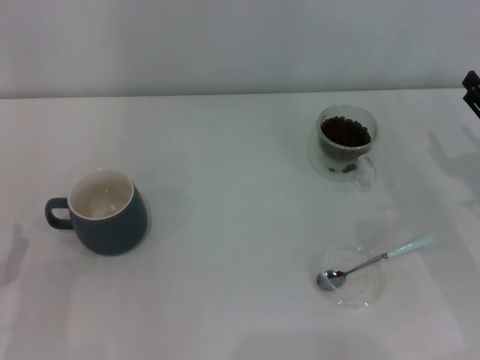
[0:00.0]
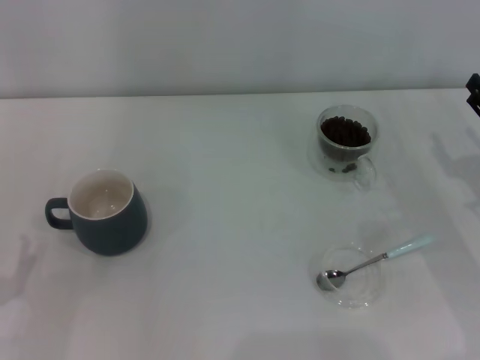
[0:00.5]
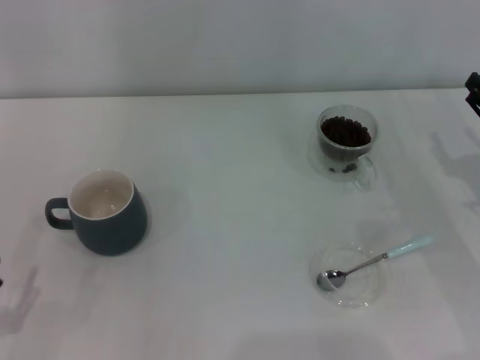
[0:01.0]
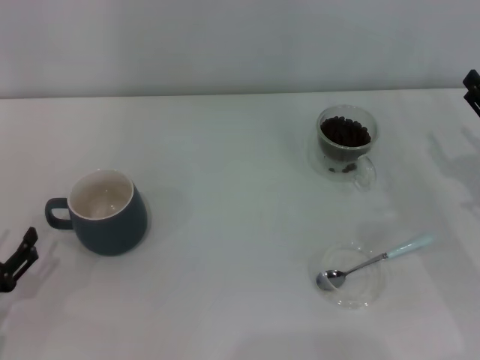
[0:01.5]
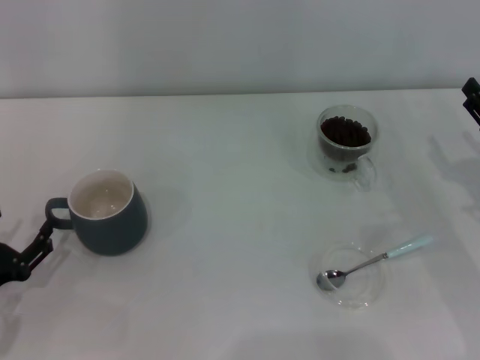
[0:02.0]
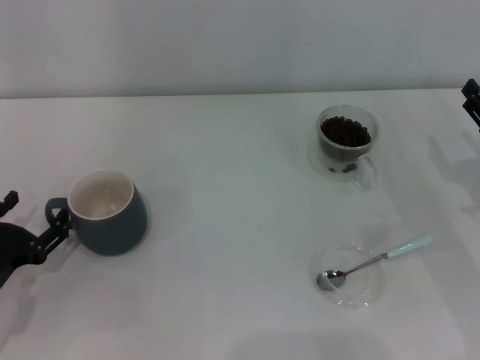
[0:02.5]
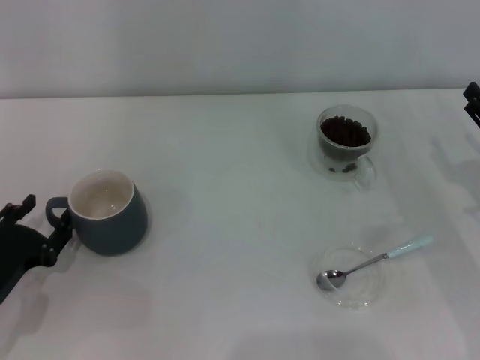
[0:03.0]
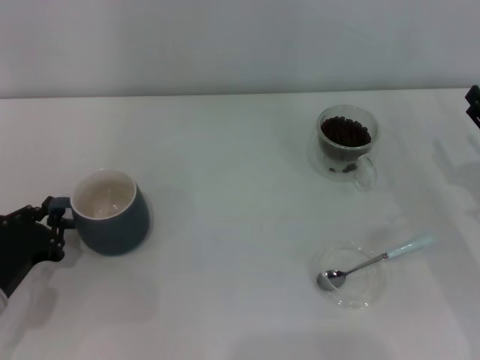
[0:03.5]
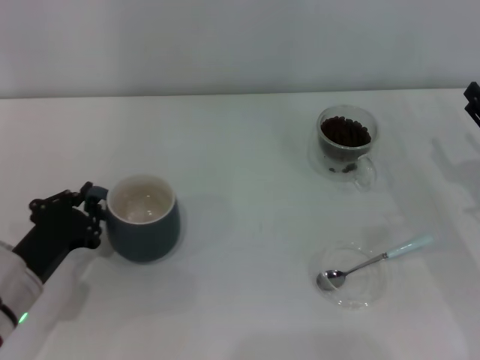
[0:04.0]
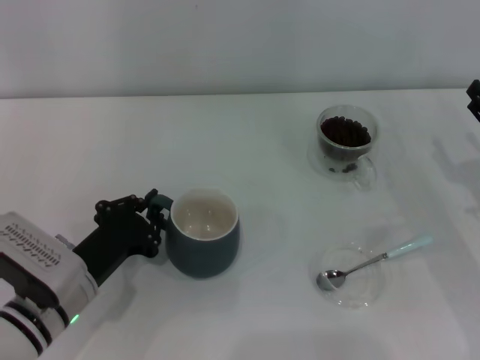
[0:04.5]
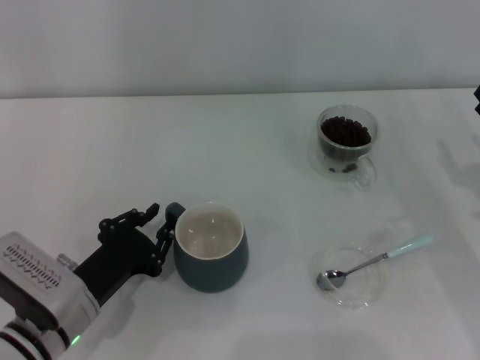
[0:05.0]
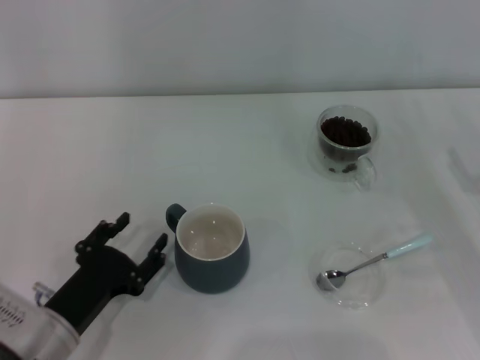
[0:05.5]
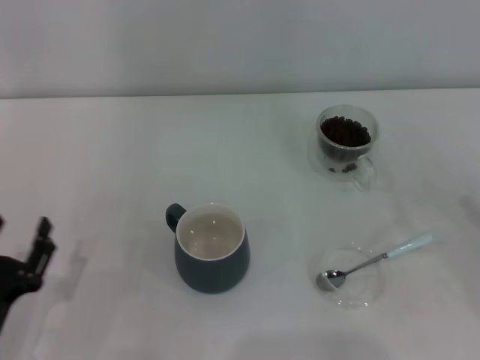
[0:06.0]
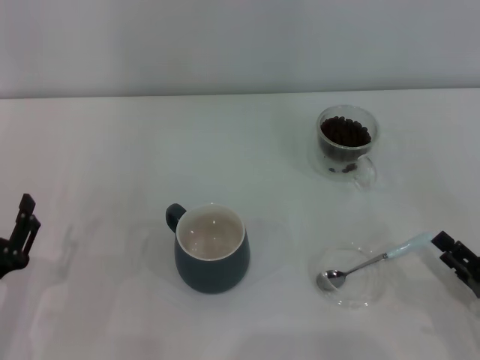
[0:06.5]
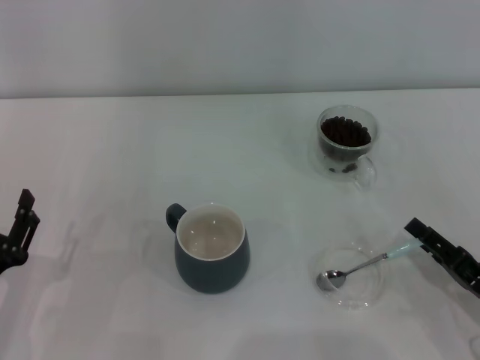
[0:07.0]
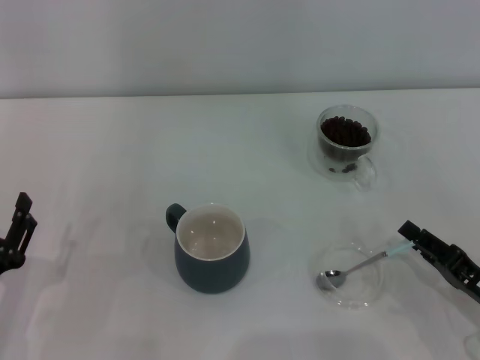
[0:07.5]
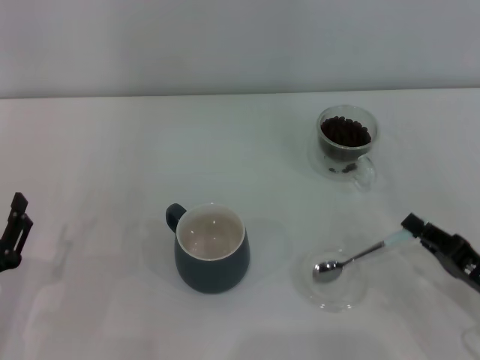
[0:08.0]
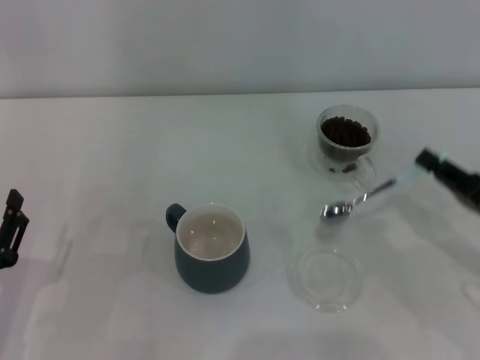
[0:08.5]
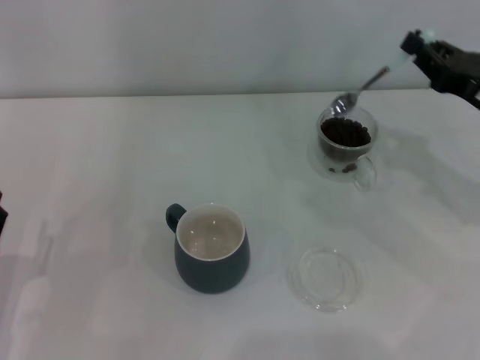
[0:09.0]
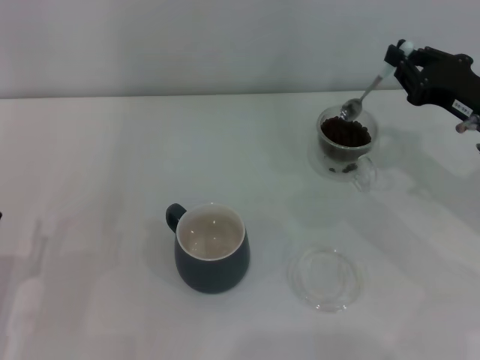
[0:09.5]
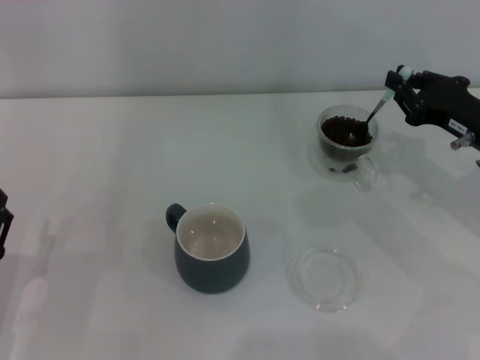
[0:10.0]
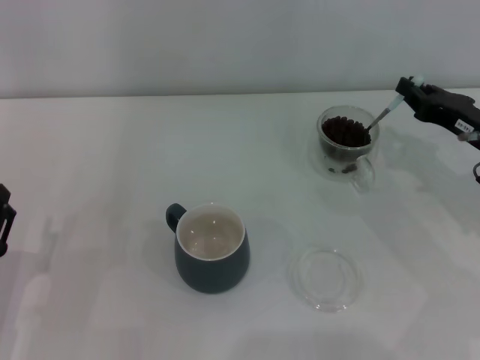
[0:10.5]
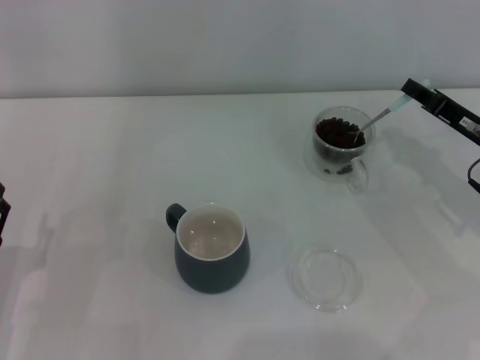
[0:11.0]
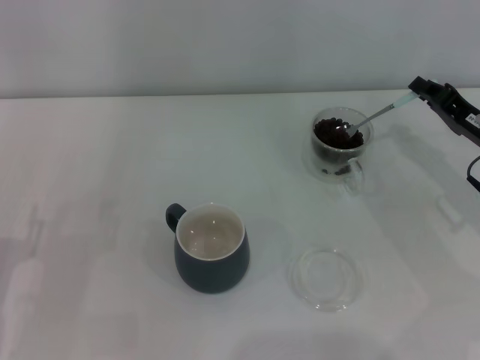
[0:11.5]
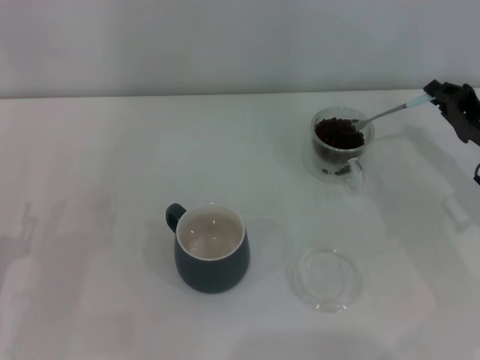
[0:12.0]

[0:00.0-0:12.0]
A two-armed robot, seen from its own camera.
Task of the whole recording: Use a blue spoon to take out the coffee beans from the glass and pour them into the gray cup.
Step, 0:00.0 to 0:05.5: Move the cup to the center of view with the left gripper.
Step, 0:06.0 to 0:08.0: Pick up the spoon with the right gripper.
0:02.0 to 0:04.0: The left gripper moves to the right, approximately 5 cm, and closes.
0:04.0 to 0:06.0: The grippers both shift backward by roughly 10 cm. The left gripper opens.
0:06.0 to 0:08.0: The right gripper is displaced to the left by roughly 5 cm, and closes its fingers.
0:08.0 to 0:10.0: The right gripper shifts approximately 15 cm forward and upward.

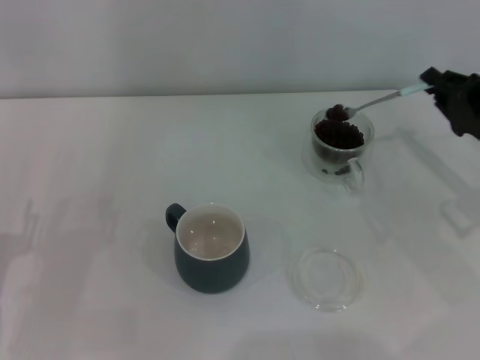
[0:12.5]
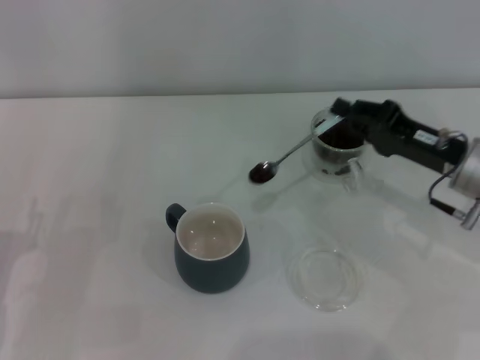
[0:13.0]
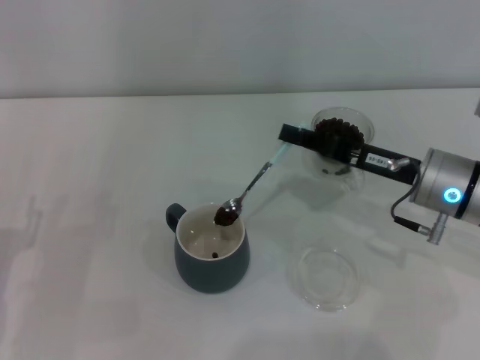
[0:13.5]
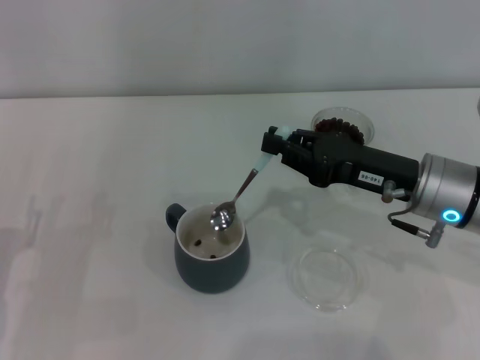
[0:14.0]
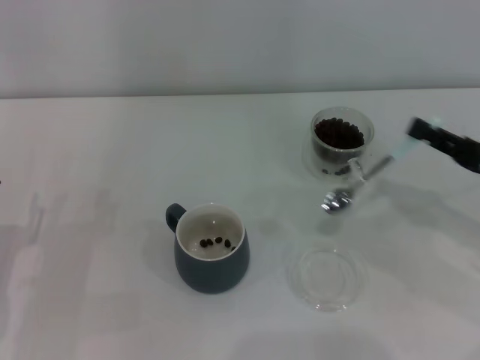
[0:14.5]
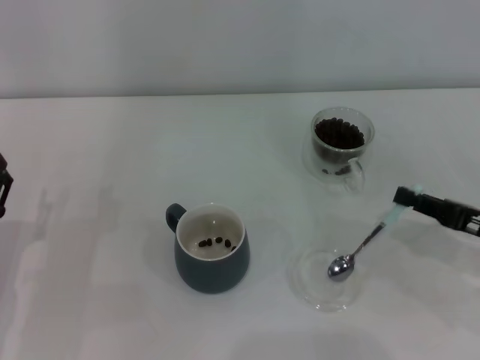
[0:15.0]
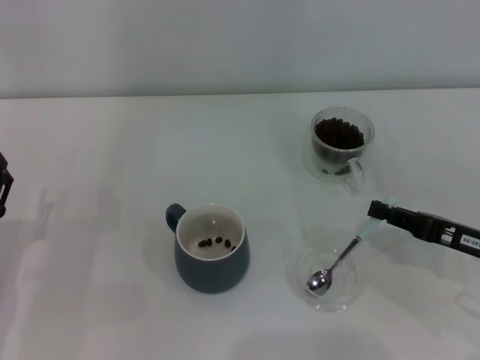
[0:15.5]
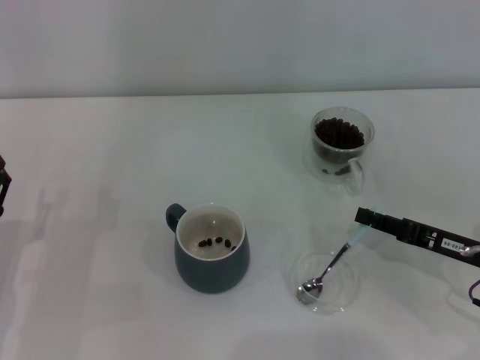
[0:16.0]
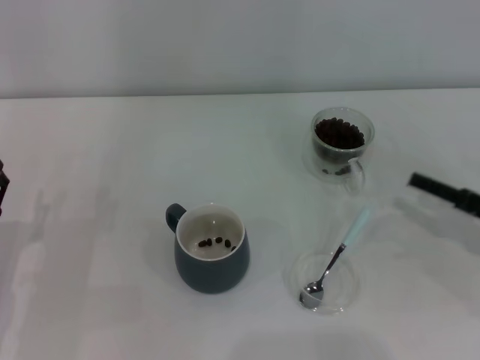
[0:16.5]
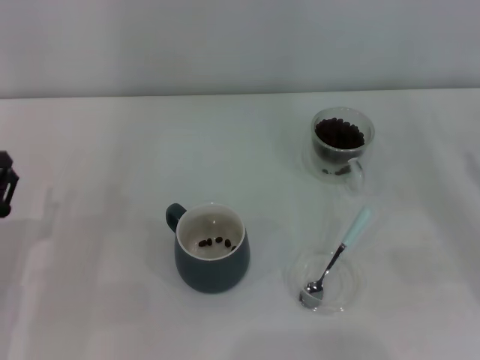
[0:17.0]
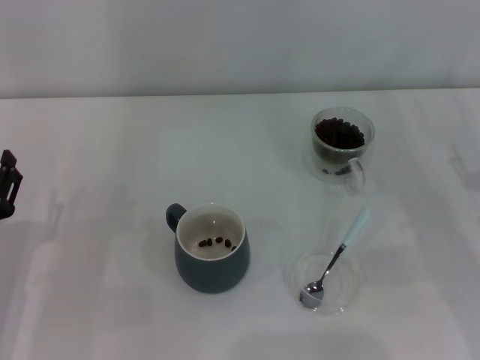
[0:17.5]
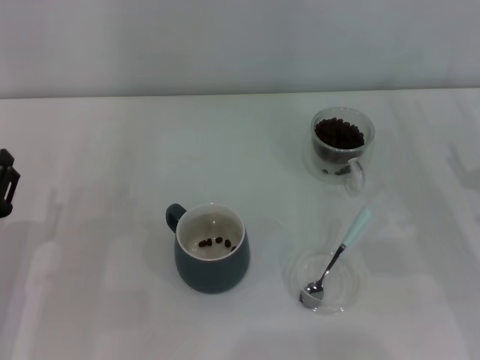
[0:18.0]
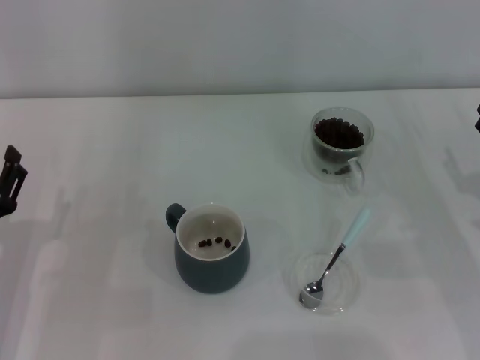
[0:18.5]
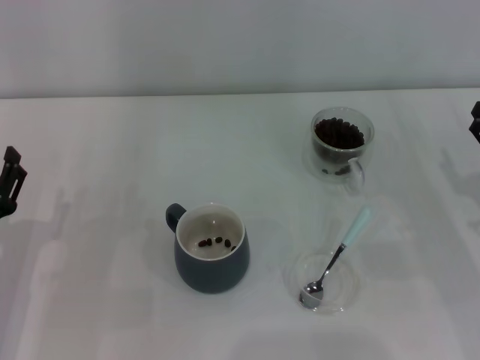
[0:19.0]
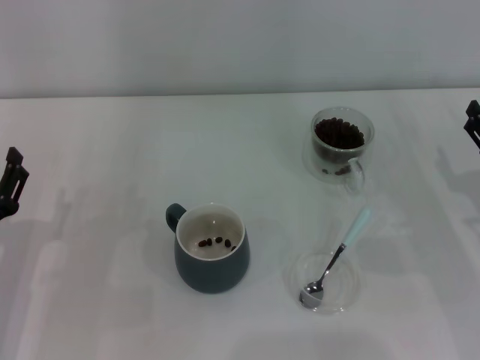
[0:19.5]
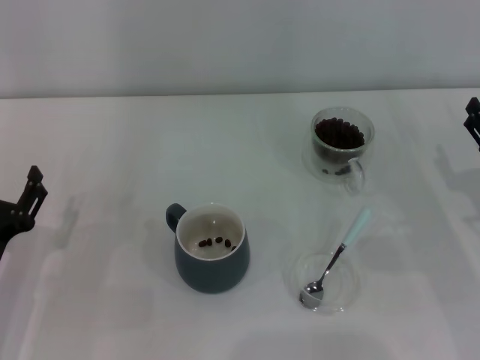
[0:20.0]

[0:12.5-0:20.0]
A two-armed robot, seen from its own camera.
Task of the whole recording: Use a blue spoon to take out the coffee beans from the glass and pour them into the gray cup.
Step, 0:14.5 to 0:16.0: Place the spoon back in its original place with the right gripper.
0:12.5 to 0:14.5: The right gripper goes roughly 5 cm backward, and travels to the left and back again, approximately 10 cm each way.
0:14.5 to 0:16.5: The right gripper goes some 5 cm downward, and opens.
0:16.5 to 0:18.0: The right gripper opens its fingers.
0:18.0 to 0:20.0: The grippers make only small movements.

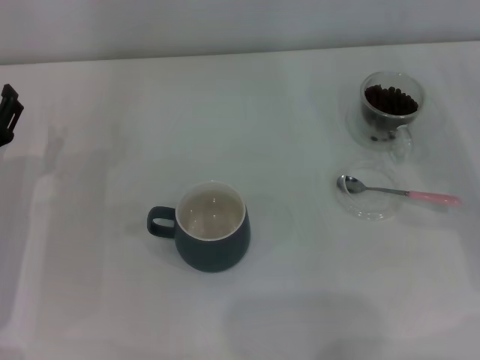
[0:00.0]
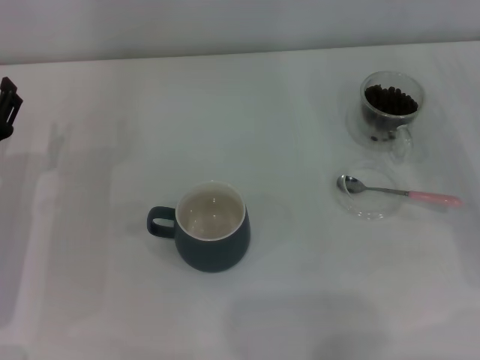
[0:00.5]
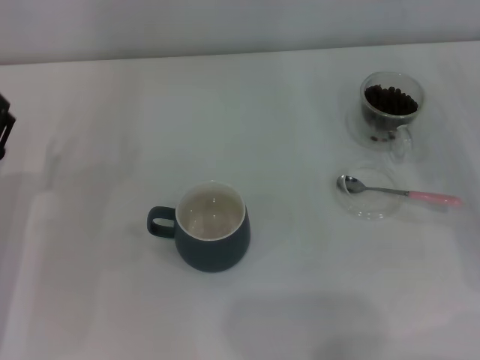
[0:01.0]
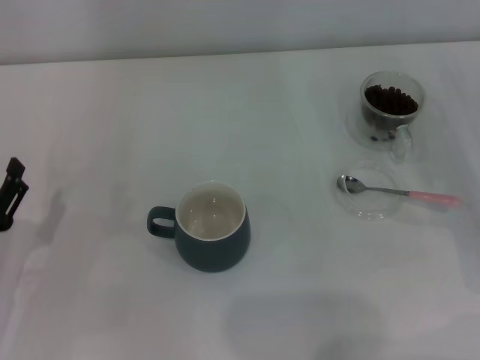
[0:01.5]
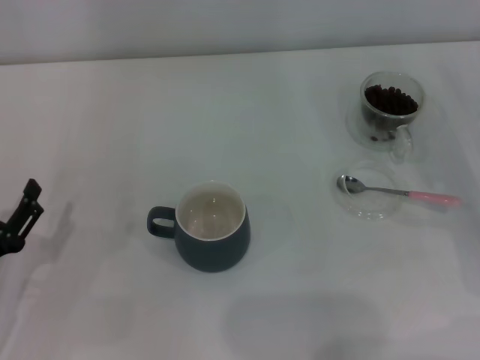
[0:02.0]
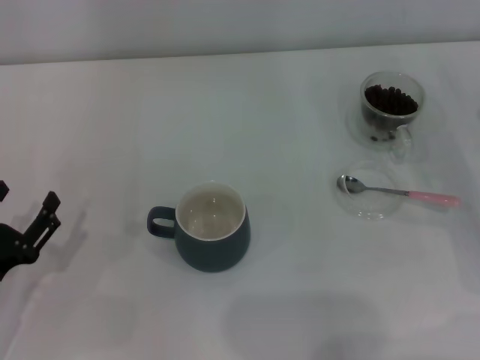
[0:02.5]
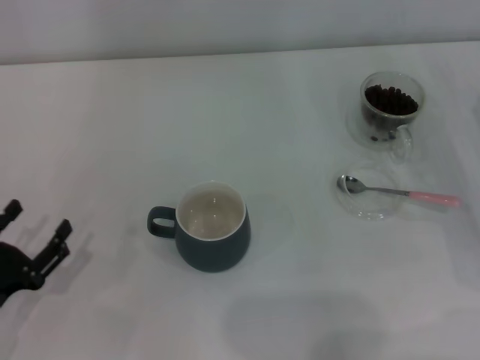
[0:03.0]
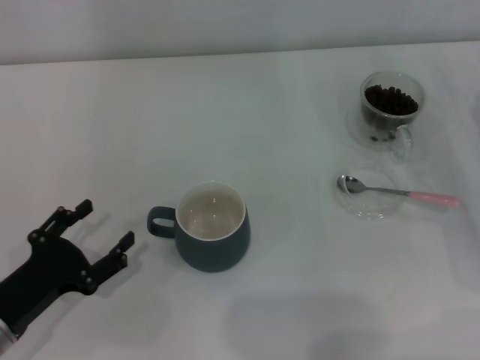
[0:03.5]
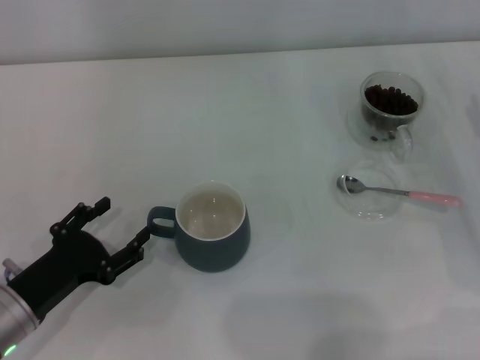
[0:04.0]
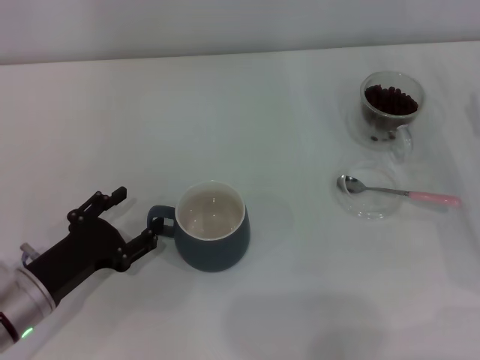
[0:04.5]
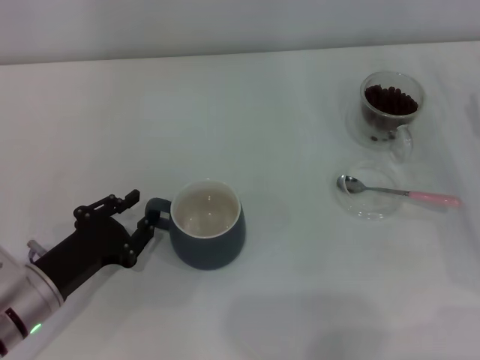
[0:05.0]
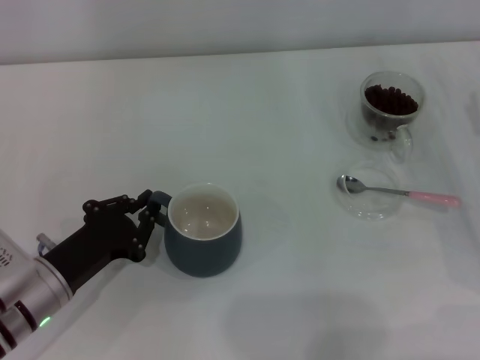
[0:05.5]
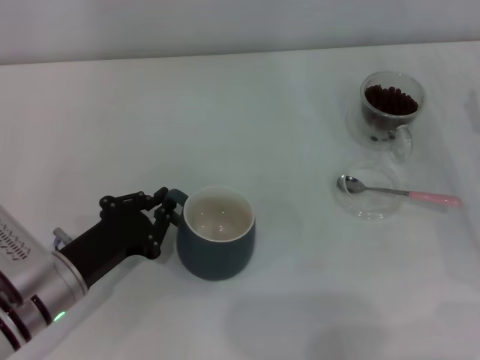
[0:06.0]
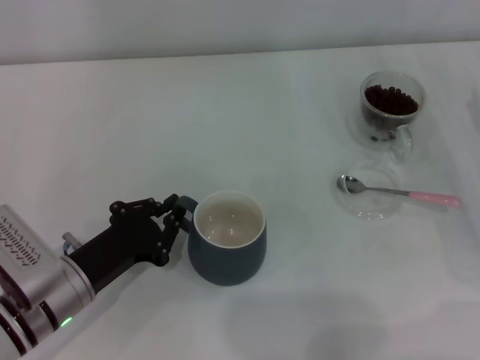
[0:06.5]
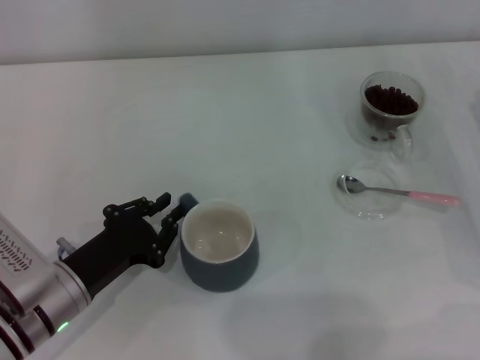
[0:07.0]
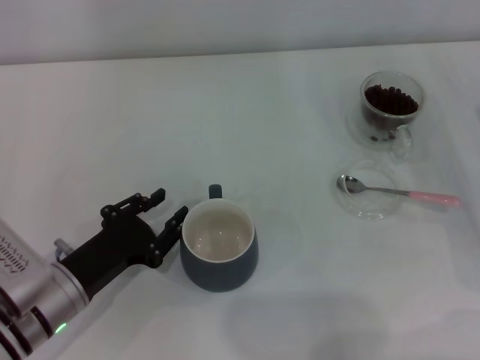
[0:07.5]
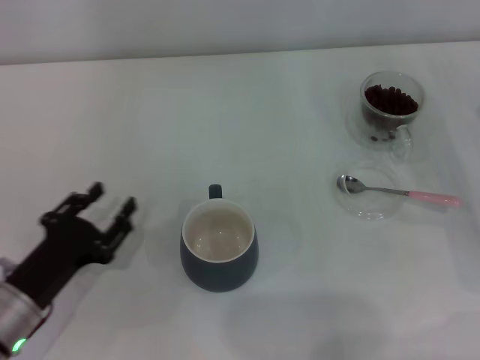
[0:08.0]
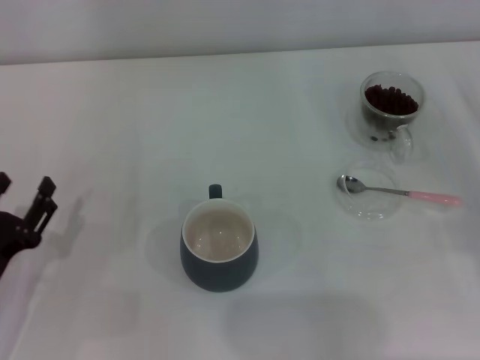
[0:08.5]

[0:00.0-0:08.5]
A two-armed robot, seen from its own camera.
Task of the whole recording: Use a pink spoon to take out the coffee beans from the glass and pour them into the gray cup.
Step, 0:00.0 to 0:07.5: Move the cup to the center of view with the left gripper.
0:00.0 to 0:02.0: The left gripper is displaced backward by about 10 cm.
0:04.0 to 0:06.5: The left gripper goes about 5 cm to the right, and closes its fingers.
0:06.5 to 0:08.5: The left gripper travels to the left by some 10 cm, and opens its fingers. The right gripper moves backward, about 5 cm.
